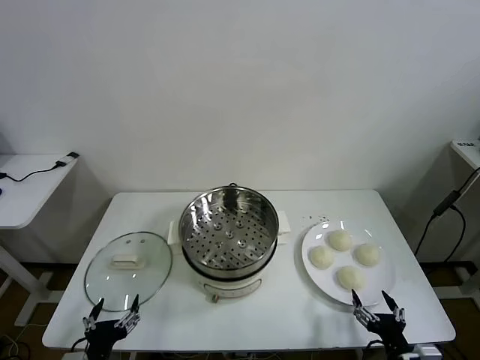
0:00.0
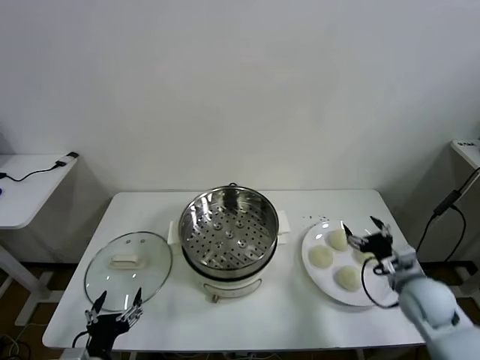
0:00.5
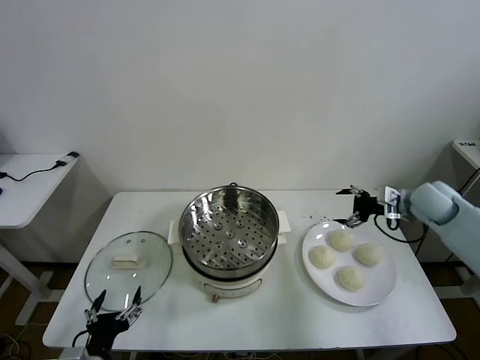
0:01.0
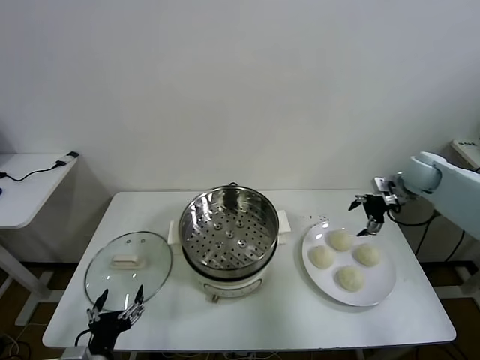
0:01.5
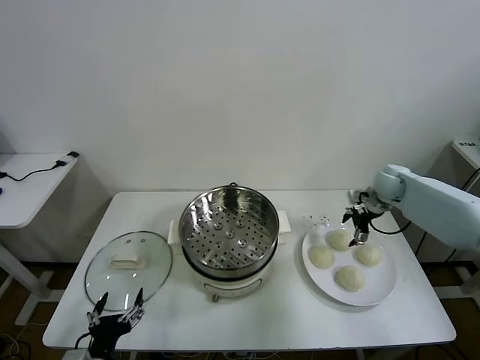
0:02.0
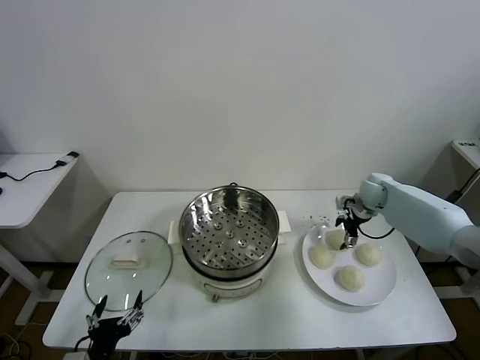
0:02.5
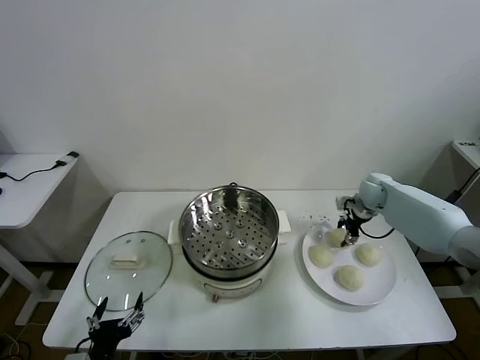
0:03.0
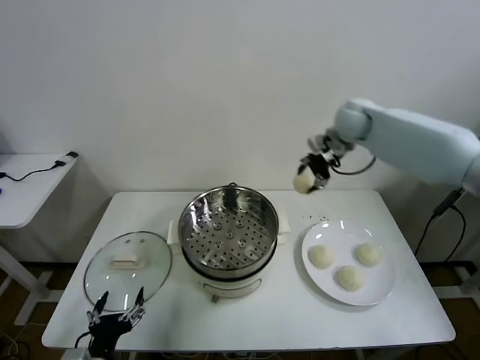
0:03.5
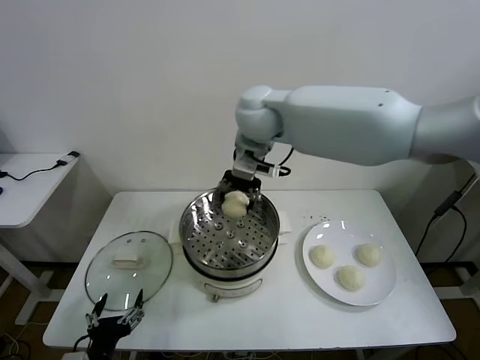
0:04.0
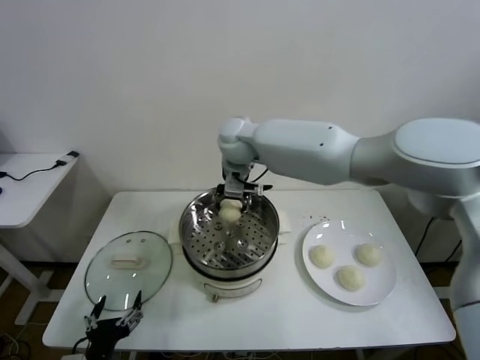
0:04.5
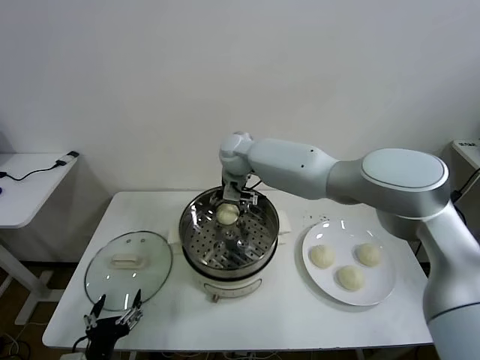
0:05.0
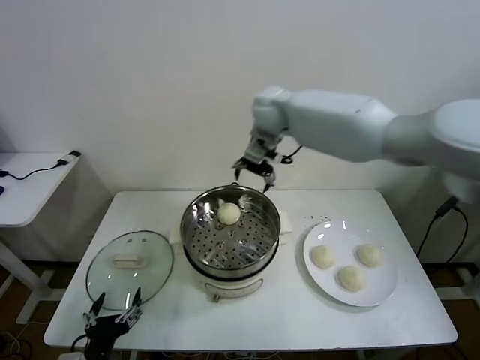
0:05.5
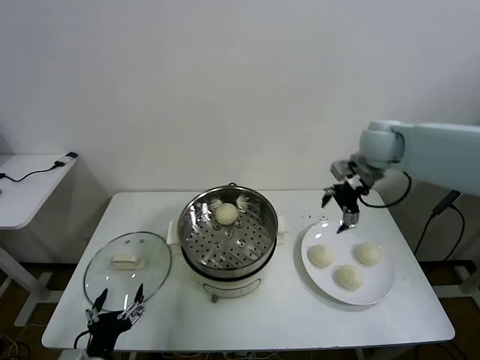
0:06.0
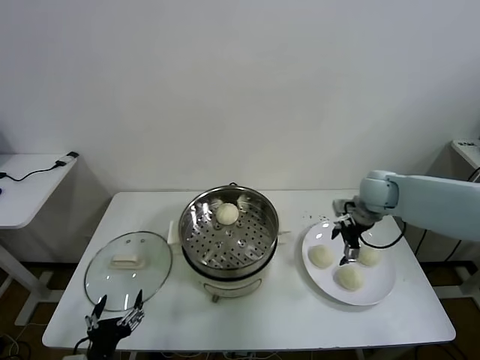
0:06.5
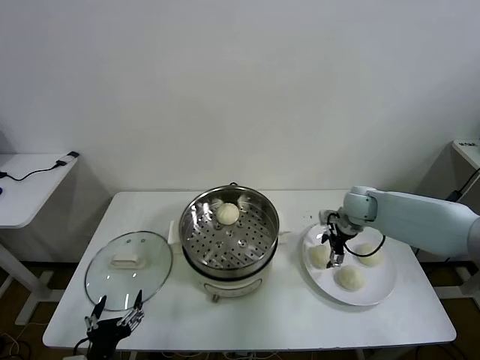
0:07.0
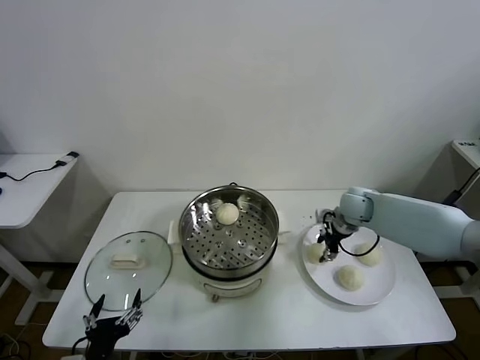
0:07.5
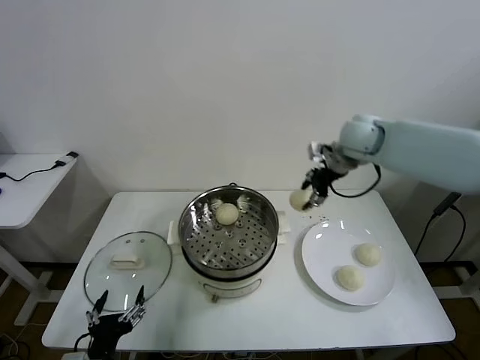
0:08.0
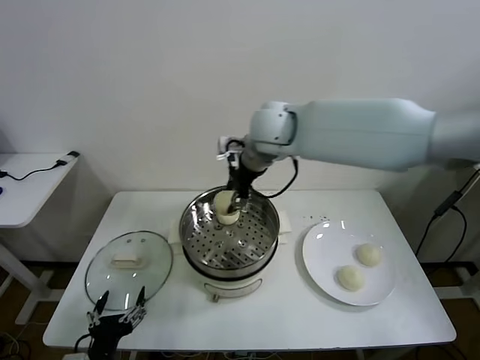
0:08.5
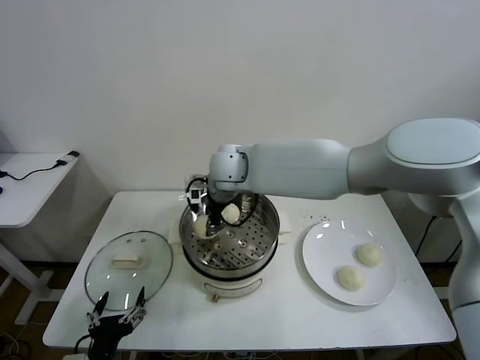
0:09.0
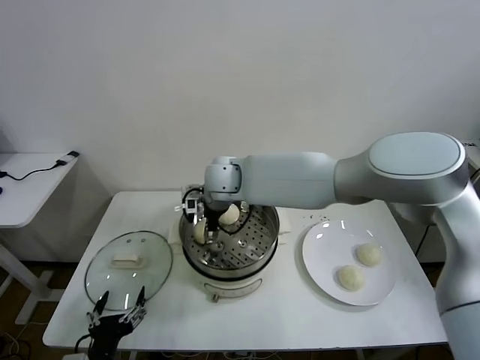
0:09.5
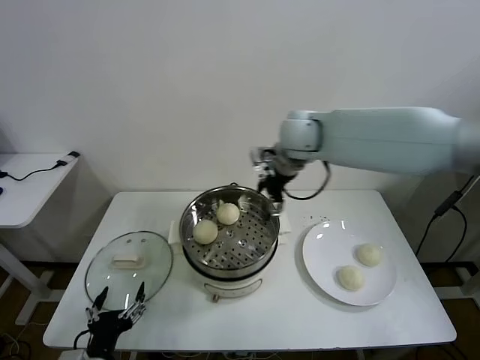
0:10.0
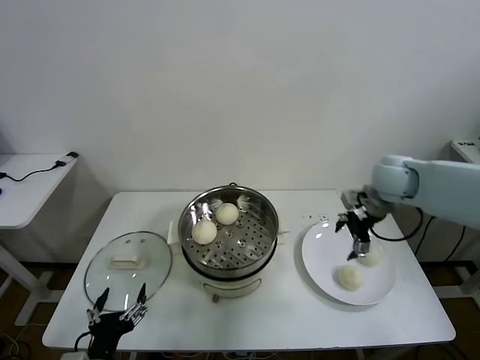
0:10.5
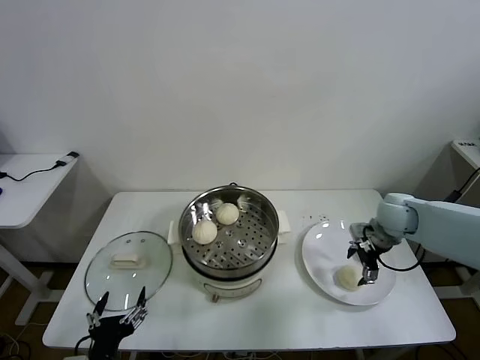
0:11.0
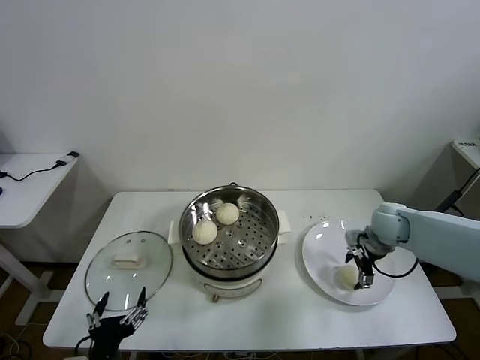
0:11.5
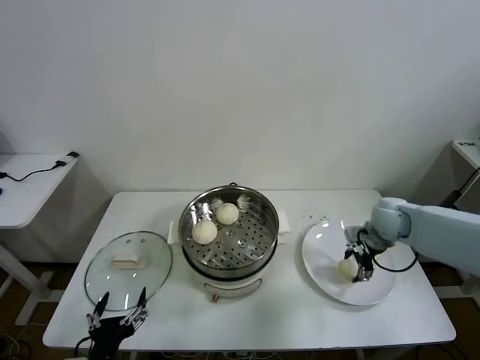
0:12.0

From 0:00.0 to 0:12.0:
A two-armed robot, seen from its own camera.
Task of the whole recording: take steamed baozi put them in steamer then cover it.
Step, from 0:00.0 to 0:02.5: Grasp the baozi in the plate with right gripper.
Step, from 0:03.0 to 0:05.0: Place the baozi on the steamer with right gripper.
Step, from 0:05.5 to 0:07.0: Grasp the baozi in the plate with right gripper.
Step, from 0:07.5 to 0:09.5: Place the baozi on the steamer with right gripper.
Step, from 0:10.0 to 0:11.5: Grasp the baozi in the plate with right gripper.
From 0:02.0 to 0:04.0: The right gripper travels to the left and upward by about 40 cm, and closes up.
From 0:04.0 to 0:06.0: The right gripper travels to the right by roughly 30 cm, and opens.
From 0:06.0 to 0:08.0: The right gripper shifts approximately 10 cm to the left, reaches some 15 cm downward, then returns, and closes its fingers.
From 0:08.0 to 0:10.0: The right gripper goes to the left and returns, approximately 25 cm each way, and opens up.
From 0:10.0 to 0:12.0: The right gripper goes some 25 cm to the right and downward, and closes up.

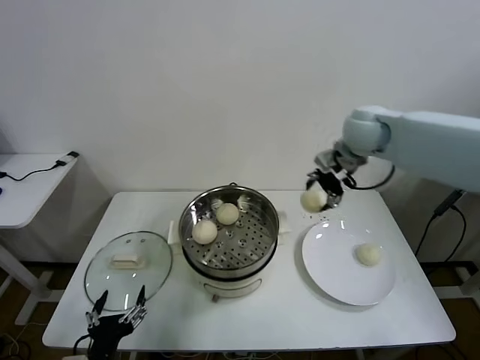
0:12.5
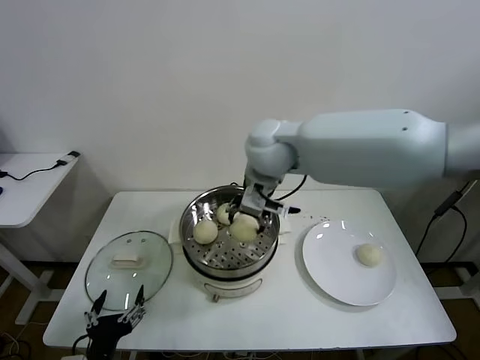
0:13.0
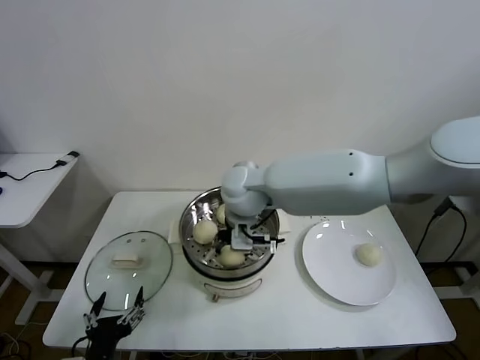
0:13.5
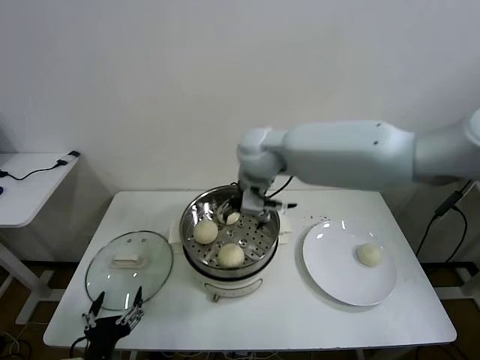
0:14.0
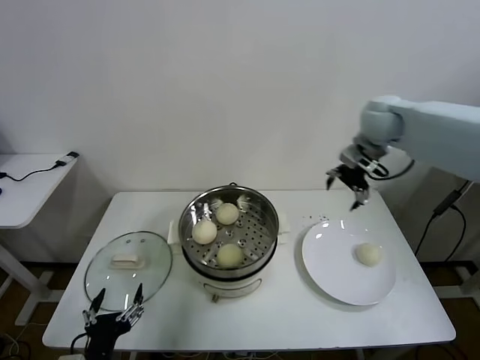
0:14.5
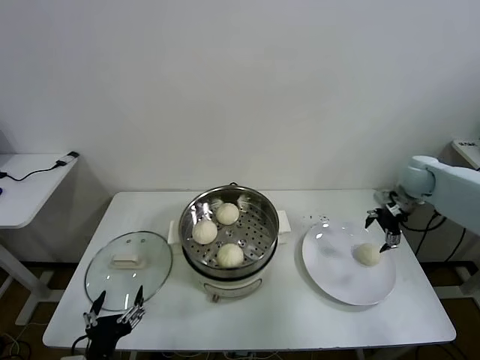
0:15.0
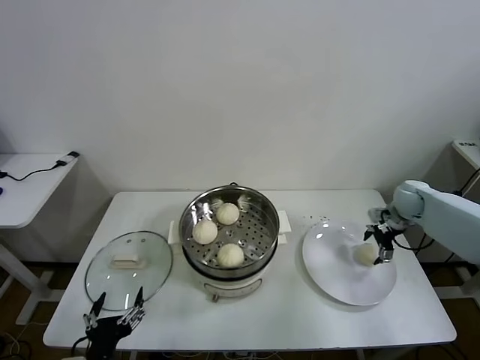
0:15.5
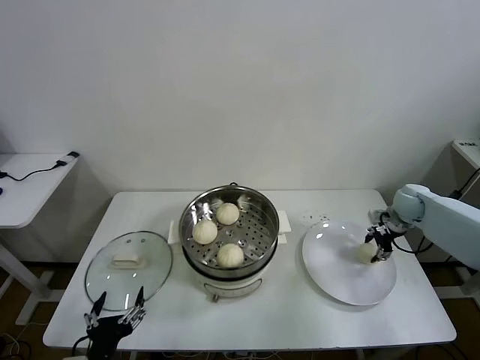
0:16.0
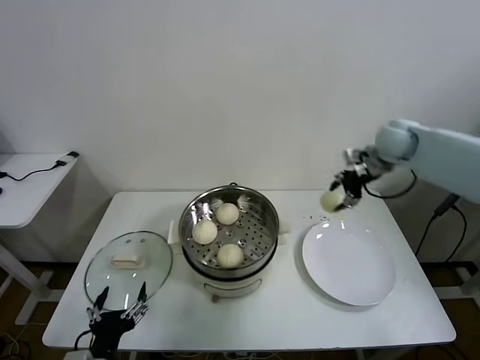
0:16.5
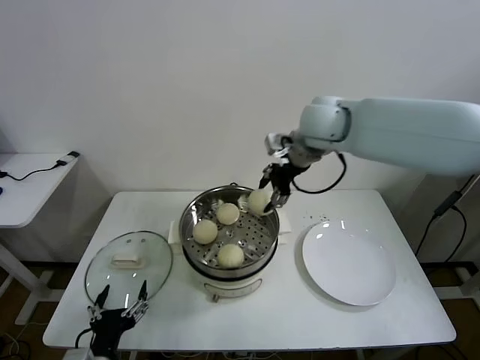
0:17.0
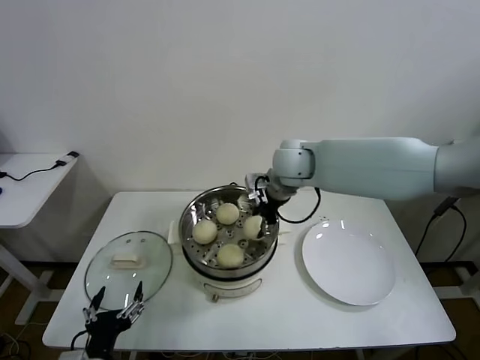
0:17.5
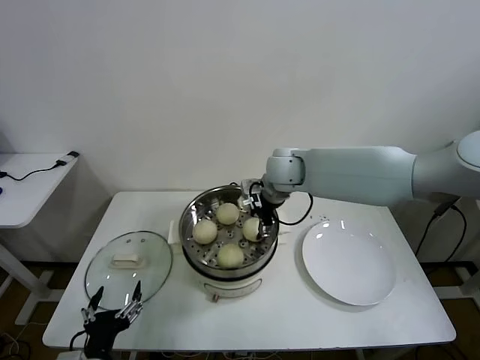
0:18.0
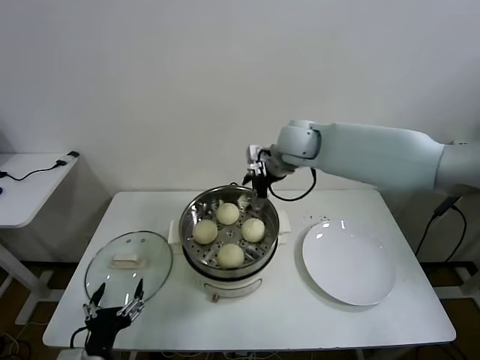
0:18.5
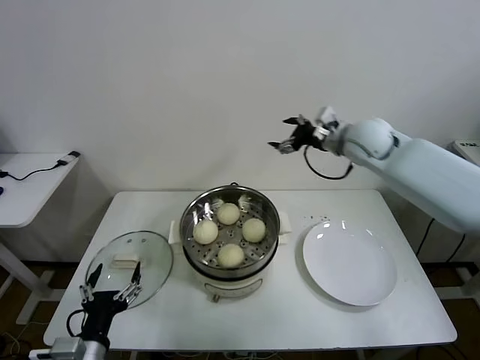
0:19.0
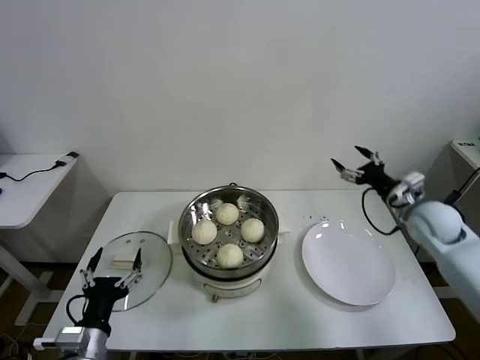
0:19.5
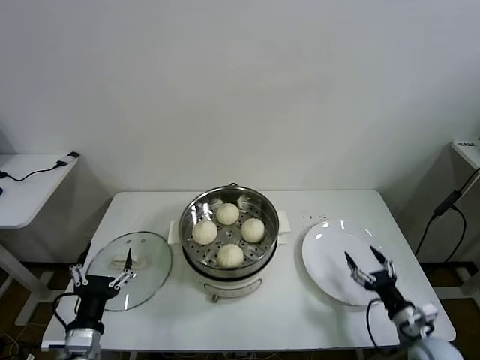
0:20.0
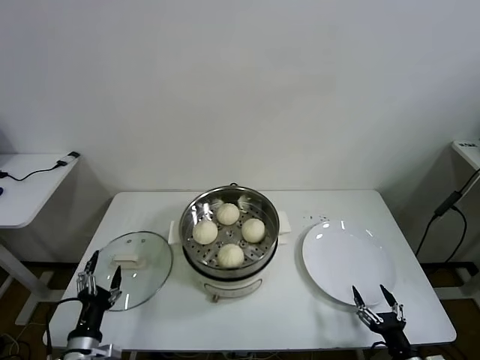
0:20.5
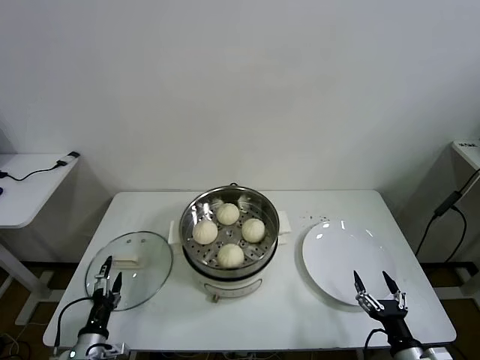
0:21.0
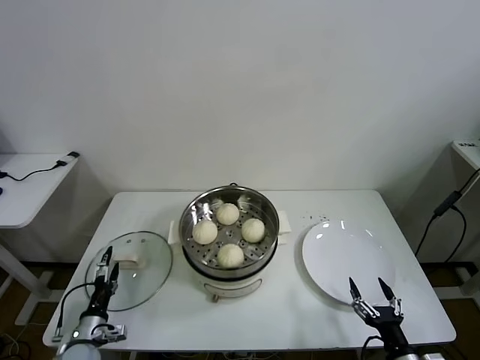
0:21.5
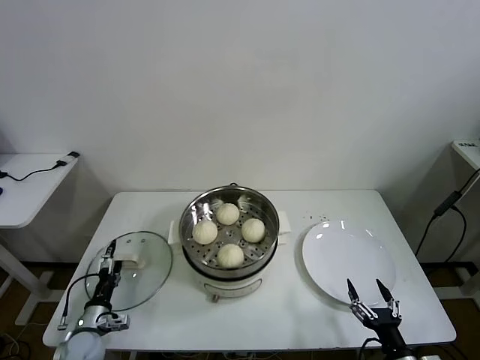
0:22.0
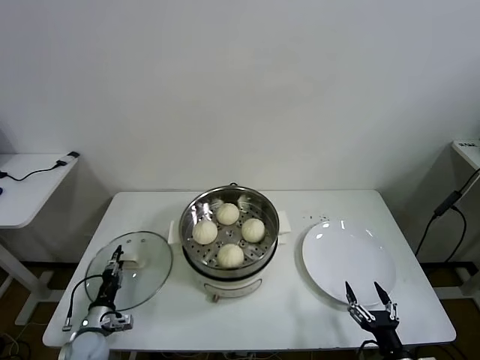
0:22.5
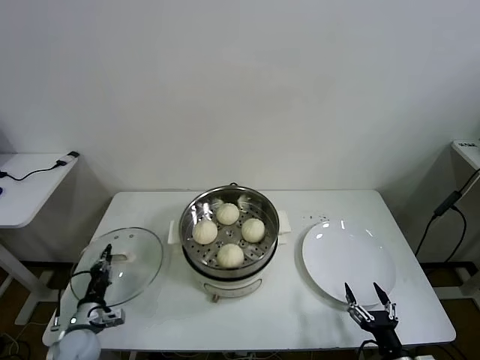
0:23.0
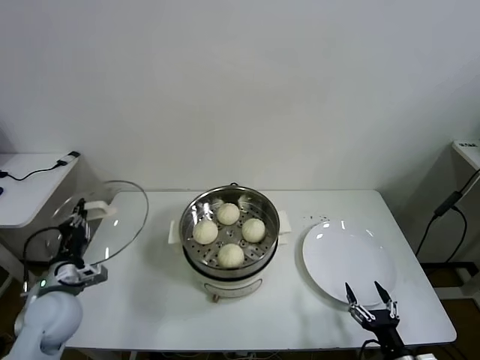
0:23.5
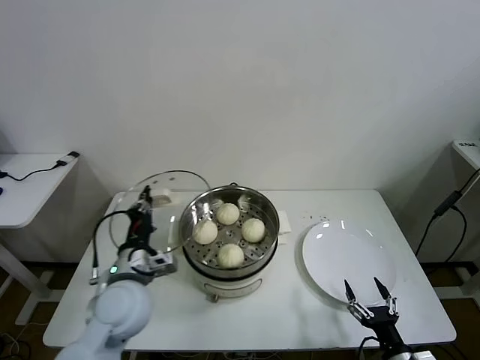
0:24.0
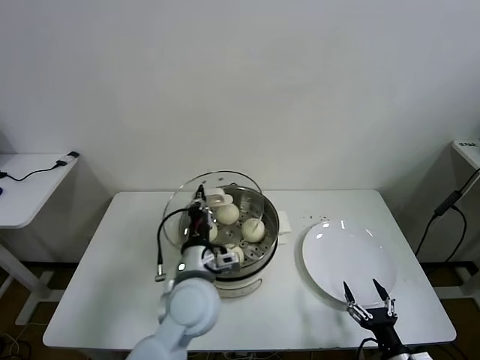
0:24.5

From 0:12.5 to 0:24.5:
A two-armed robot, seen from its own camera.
Task of the whole recording: take steamed baozi put them in steamer then cover it.
Step, from 0:12.5 to 0:13.5: Place the baozi on the steamer with right gripper.
Step, from 0:14.0 to 0:15.5: Grasp the baozi in the plate with right gripper.
Step, from 0:16.0 to 0:18.0: Place the baozi on the steamer with right gripper.
Step, from 0:18.5 to 0:22.5: Grasp the pot lid with left gripper.
From 0:12.5 to 0:14.5: The right gripper moves roughly 20 cm to the left and comes back, and opens.
From 0:14.5 to 0:16.5: The right gripper travels downward and back again, roughly 20 cm each way, and closes its fingers.
From 0:16.5 to 0:18.5: The right gripper heads to the left, covering roughly 20 cm, and opens.
From 0:18.5 to 0:20.5: The left gripper moves downward and to the left, approximately 10 cm; the right gripper shifts some 60 cm backward, downward and to the right.
From 0:20.5 to 0:22.5: The right gripper changes place by about 5 cm. The left gripper moves downward, forward and to the left, some 15 cm, and closes.
From 0:22.5 to 0:24.5: The left gripper moves to the right and upward, about 40 cm, and closes its fingers.

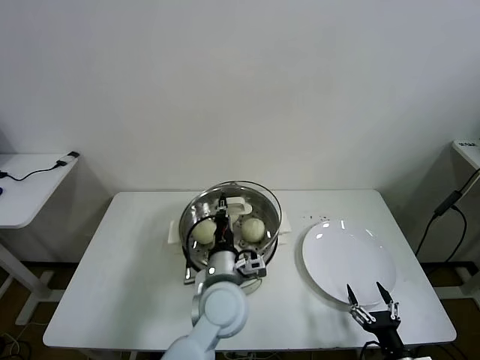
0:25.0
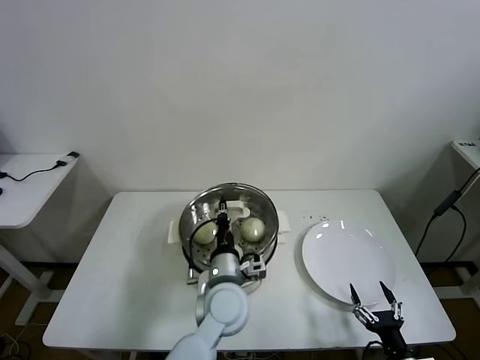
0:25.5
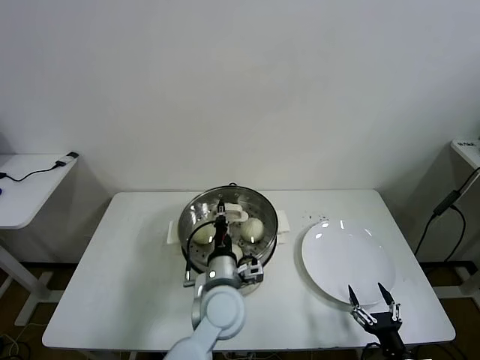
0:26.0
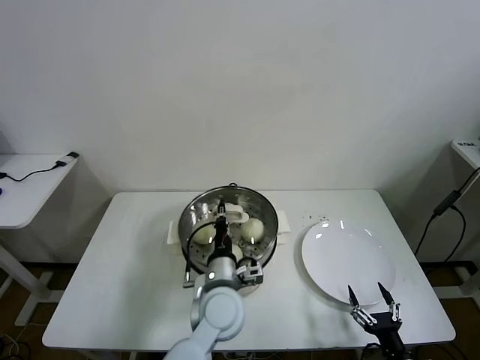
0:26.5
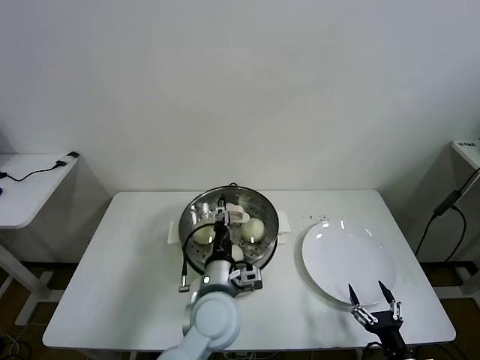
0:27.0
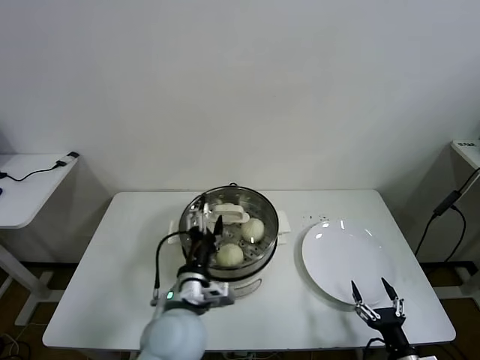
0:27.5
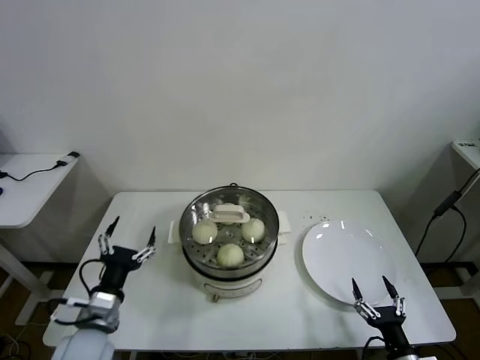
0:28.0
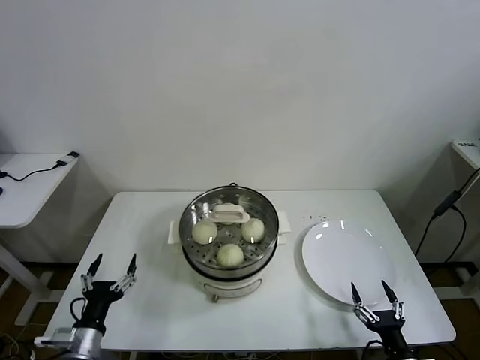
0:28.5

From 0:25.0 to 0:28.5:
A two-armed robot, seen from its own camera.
Task of the whole recording: take steamed baozi put them in steamer then cover it.
From 0:25.0 to 0:27.0: The left gripper opens up.
From 0:27.0 to 0:28.5: The left gripper shifts some 30 cm to the left, and opens its fingers.
